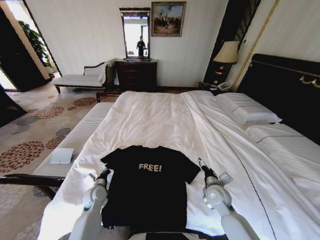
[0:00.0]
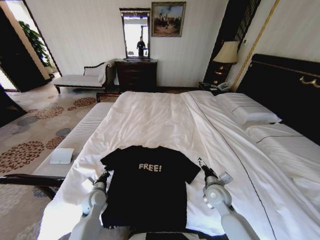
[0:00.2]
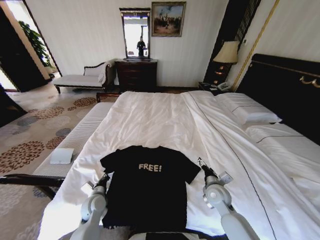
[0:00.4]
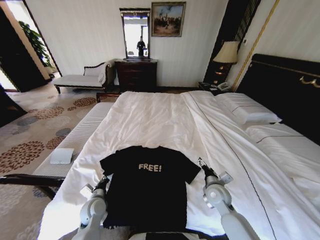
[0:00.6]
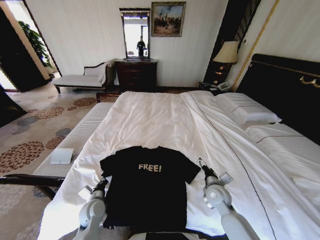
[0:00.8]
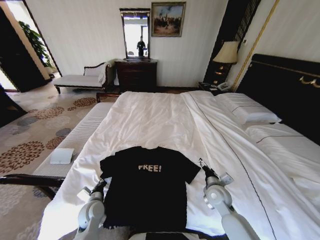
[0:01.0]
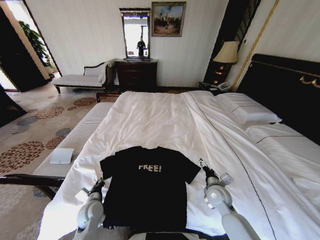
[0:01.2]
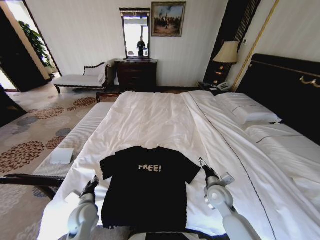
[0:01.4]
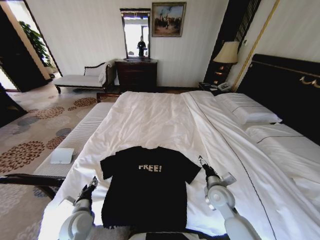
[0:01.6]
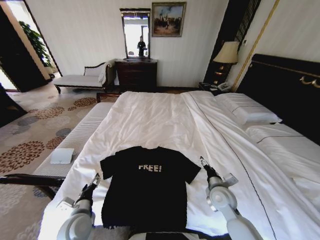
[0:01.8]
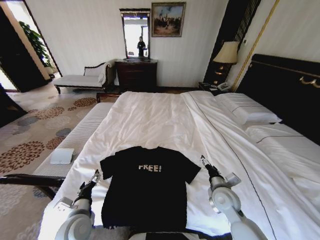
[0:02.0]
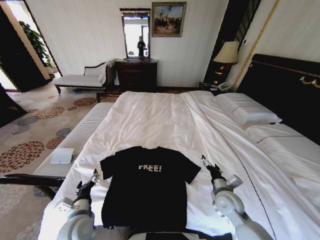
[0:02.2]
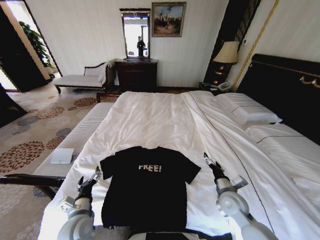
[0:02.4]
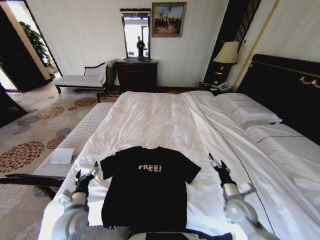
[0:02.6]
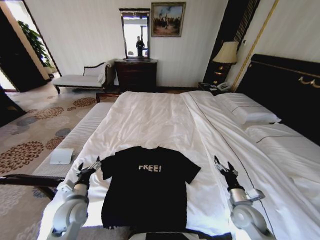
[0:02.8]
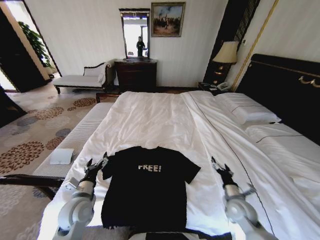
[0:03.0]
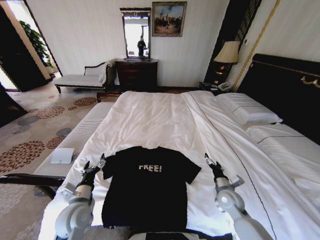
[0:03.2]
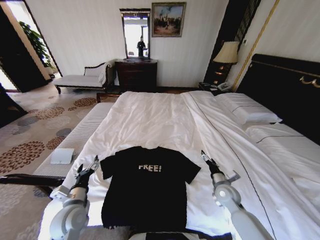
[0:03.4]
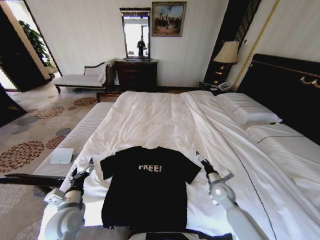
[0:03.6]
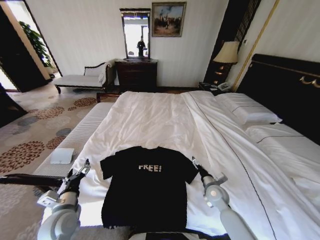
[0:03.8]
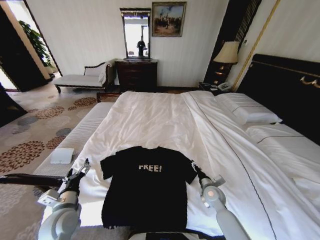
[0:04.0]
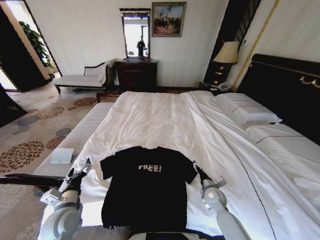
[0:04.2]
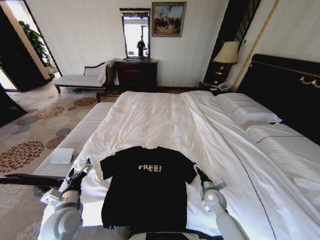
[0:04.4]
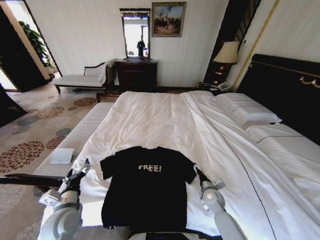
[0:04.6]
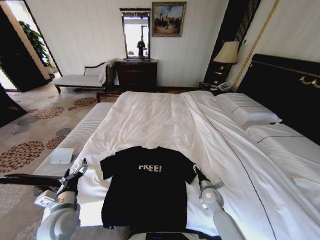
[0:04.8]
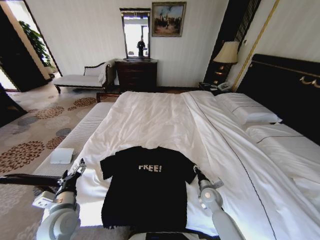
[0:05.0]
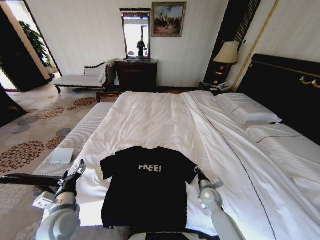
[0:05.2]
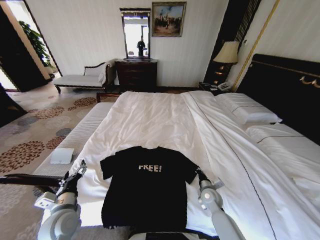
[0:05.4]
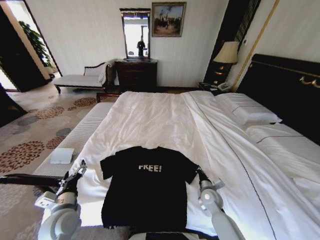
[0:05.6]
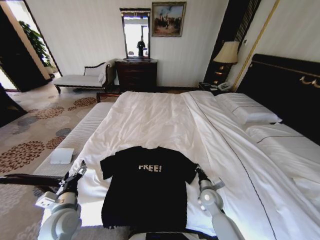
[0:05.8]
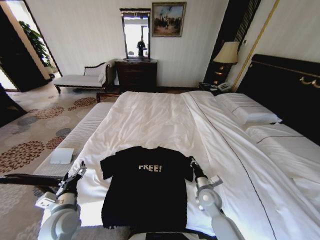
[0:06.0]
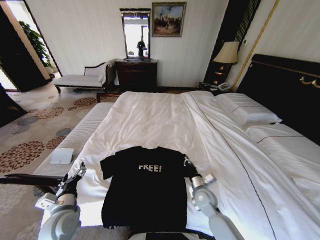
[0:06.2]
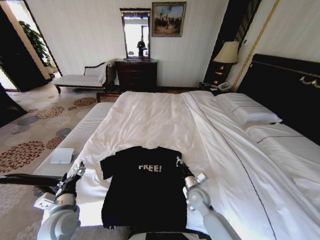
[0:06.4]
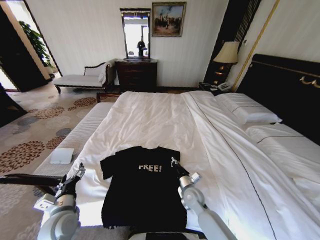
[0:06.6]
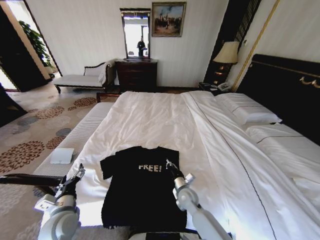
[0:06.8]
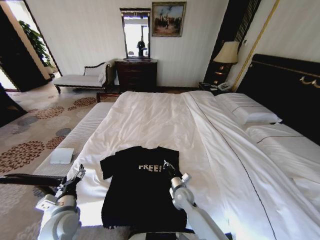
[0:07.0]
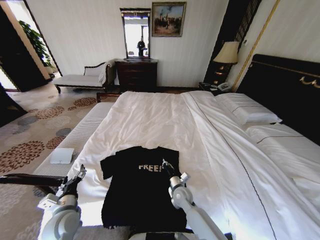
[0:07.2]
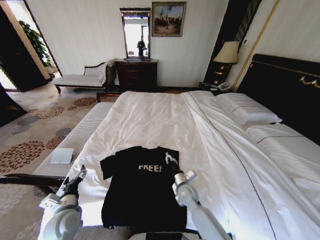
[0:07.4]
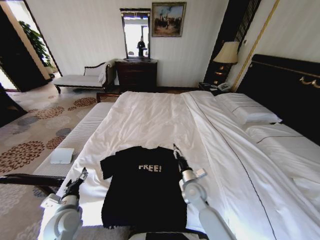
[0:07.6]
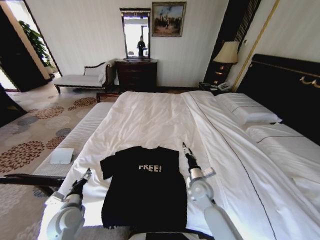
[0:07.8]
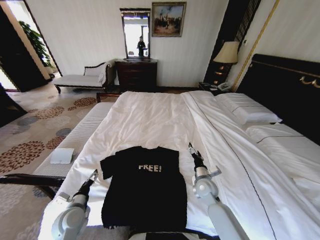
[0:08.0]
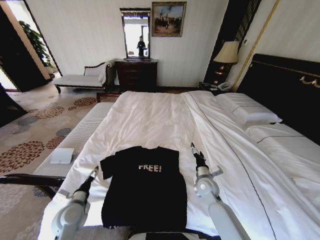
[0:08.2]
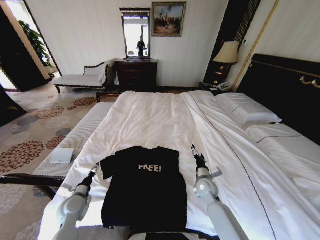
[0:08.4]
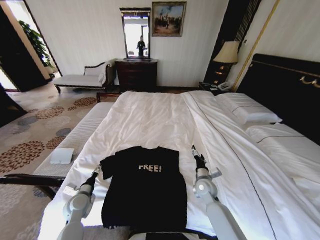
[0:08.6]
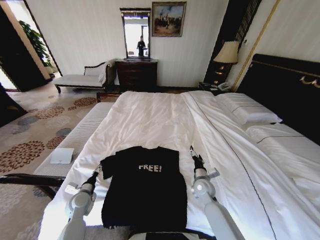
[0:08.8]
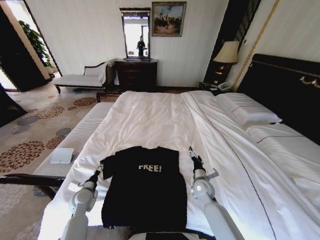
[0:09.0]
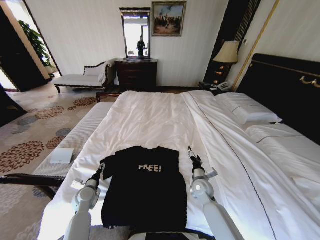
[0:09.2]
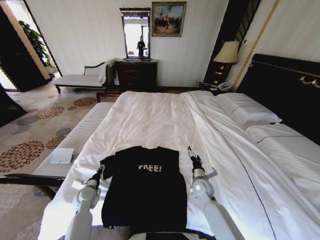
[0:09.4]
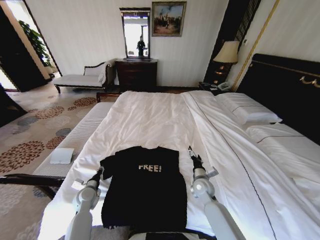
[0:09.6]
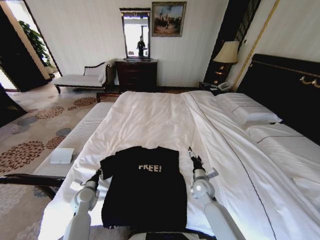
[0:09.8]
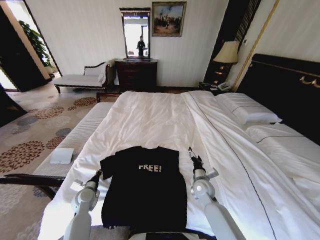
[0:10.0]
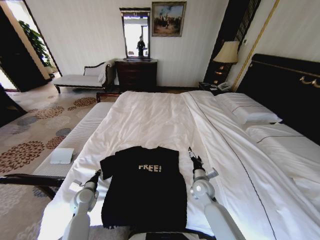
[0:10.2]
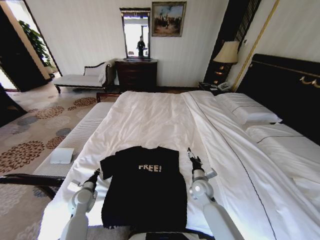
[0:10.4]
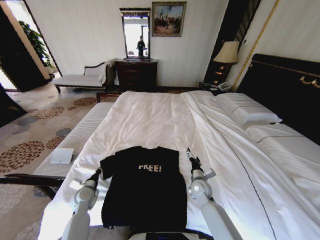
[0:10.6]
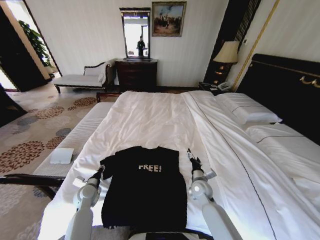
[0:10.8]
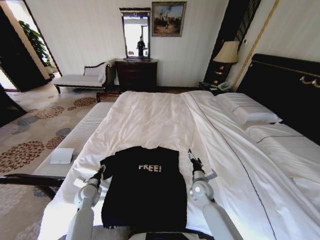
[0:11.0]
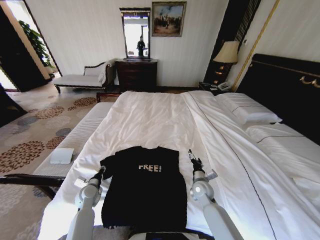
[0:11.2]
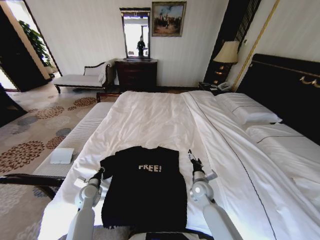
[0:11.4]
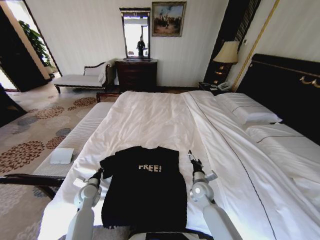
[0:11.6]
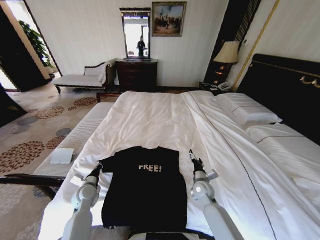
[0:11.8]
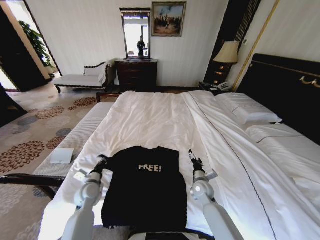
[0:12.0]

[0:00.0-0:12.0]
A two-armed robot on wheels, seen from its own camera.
Task of the whole recording: Fold the clothes on the bed.
0:00.0 to 0:01.6: The left gripper travels backward and upward by approximately 15 cm, and opens.
0:01.6 to 0:03.0: The right gripper travels to the right by some 10 cm, while the left gripper heads upward, covering about 5 cm.
0:03.0 to 0:04.4: The right gripper travels to the left and downward by about 10 cm.
0:04.4 to 0:06.0: The right gripper closes its fingers.
0:06.0 to 0:07.6: The right gripper heads to the left, covering approximately 5 cm, and opens up.
0:07.6 to 0:09.0: The left gripper goes some 10 cm forward and downward, while the right gripper shifts some 5 cm to the right, and opens its fingers.
0:10.4 to 0:12.0: The left gripper changes place by approximately 5 cm, and opens, then closes again.

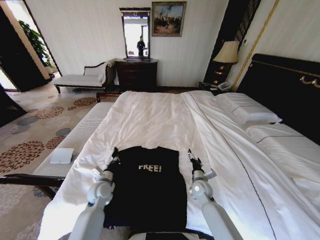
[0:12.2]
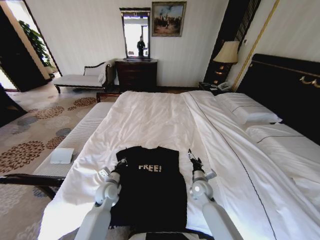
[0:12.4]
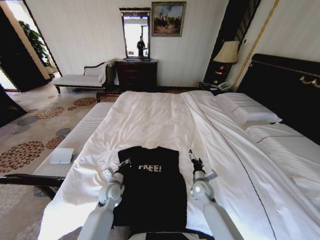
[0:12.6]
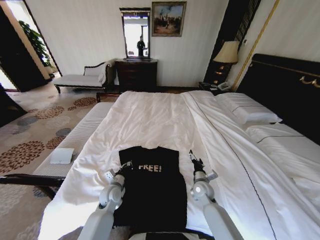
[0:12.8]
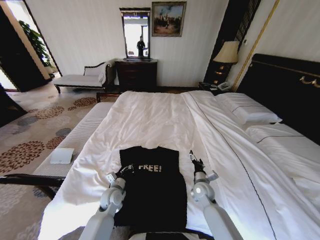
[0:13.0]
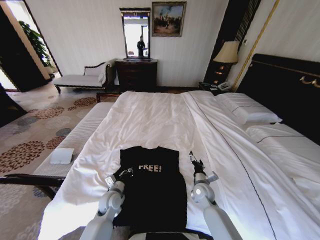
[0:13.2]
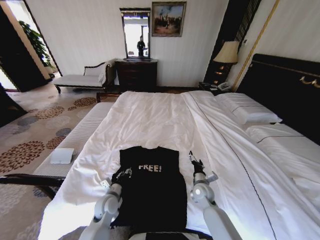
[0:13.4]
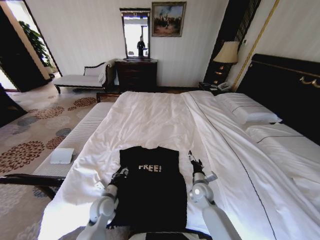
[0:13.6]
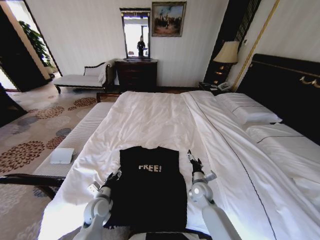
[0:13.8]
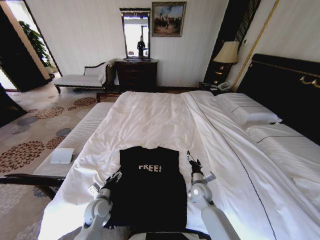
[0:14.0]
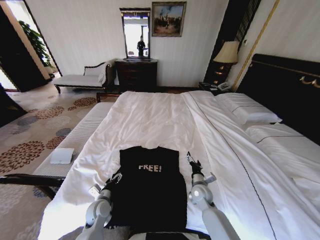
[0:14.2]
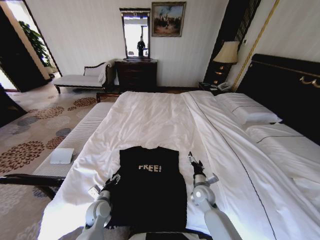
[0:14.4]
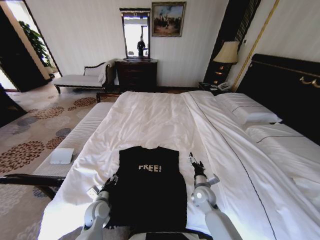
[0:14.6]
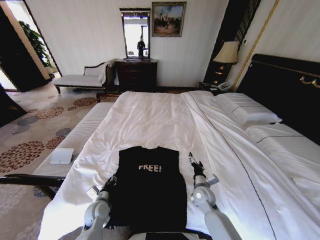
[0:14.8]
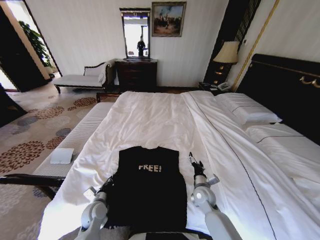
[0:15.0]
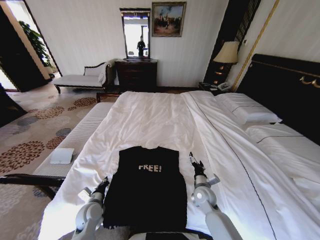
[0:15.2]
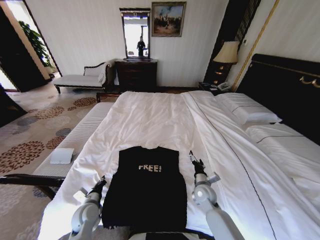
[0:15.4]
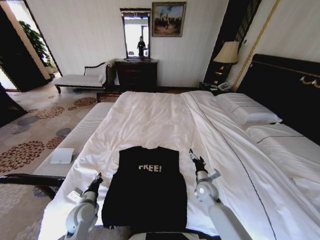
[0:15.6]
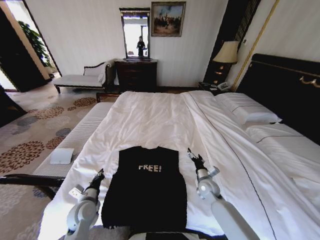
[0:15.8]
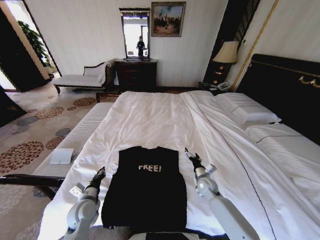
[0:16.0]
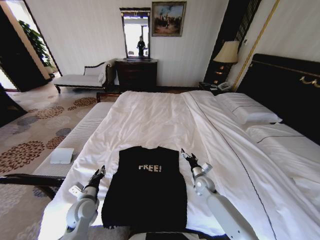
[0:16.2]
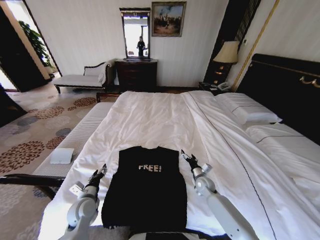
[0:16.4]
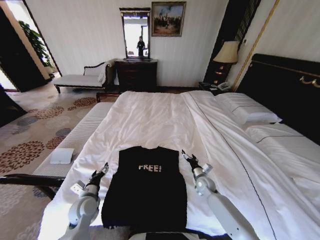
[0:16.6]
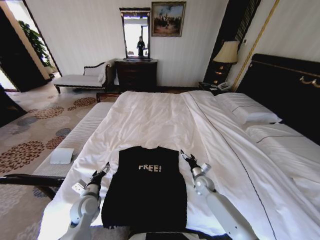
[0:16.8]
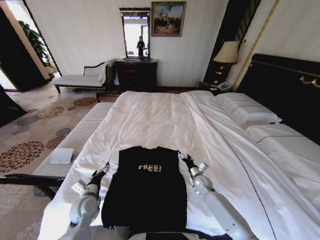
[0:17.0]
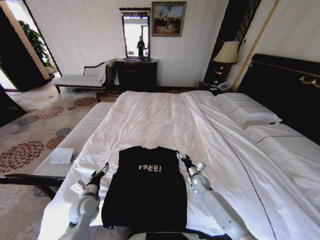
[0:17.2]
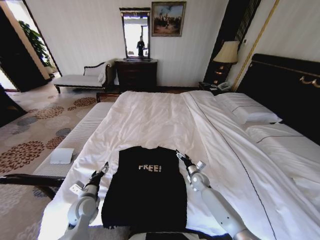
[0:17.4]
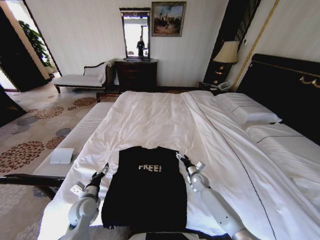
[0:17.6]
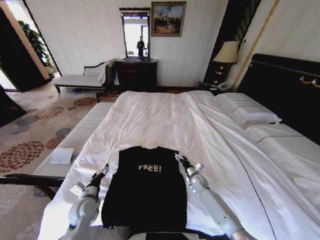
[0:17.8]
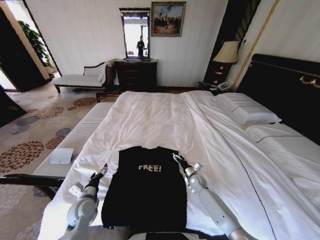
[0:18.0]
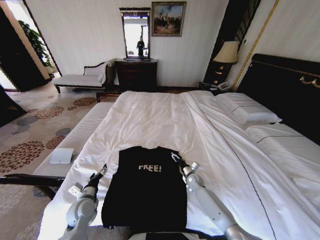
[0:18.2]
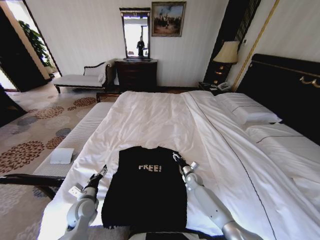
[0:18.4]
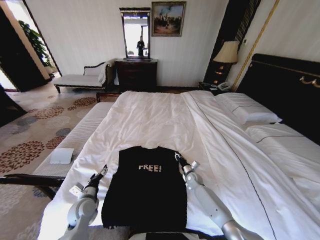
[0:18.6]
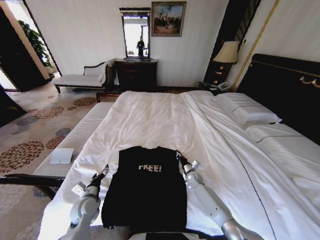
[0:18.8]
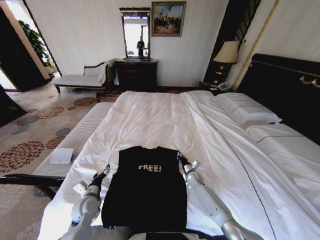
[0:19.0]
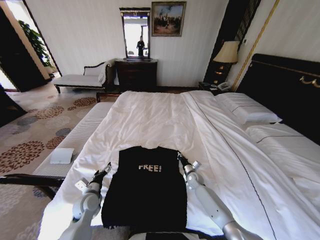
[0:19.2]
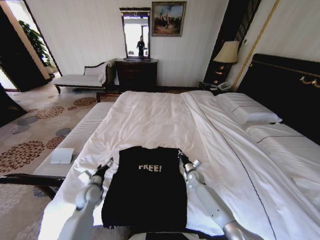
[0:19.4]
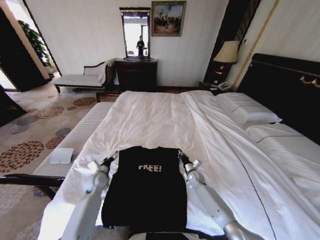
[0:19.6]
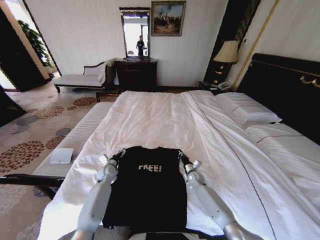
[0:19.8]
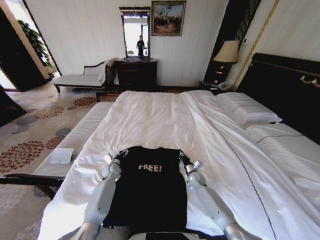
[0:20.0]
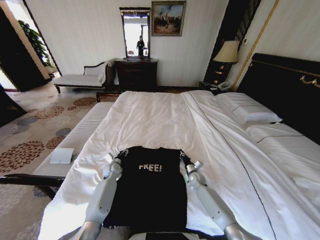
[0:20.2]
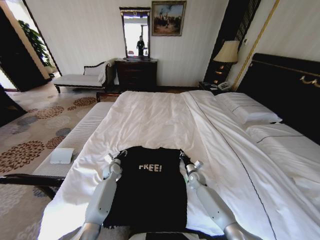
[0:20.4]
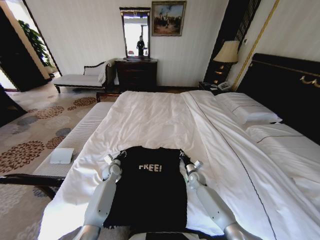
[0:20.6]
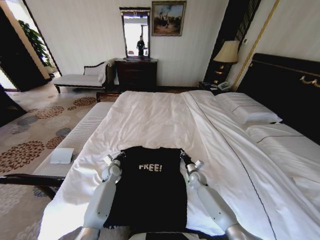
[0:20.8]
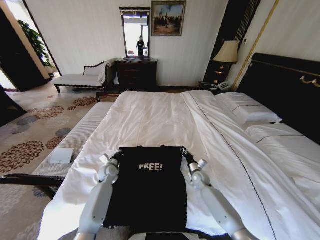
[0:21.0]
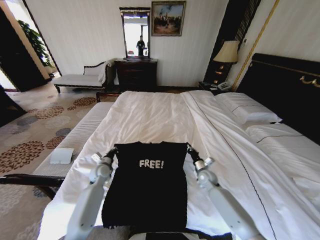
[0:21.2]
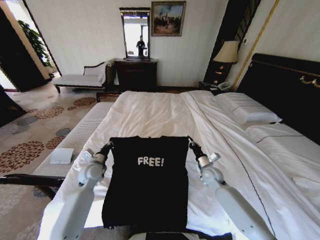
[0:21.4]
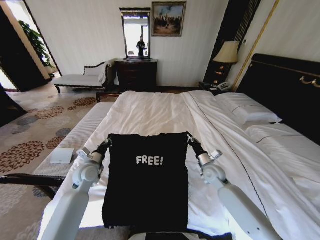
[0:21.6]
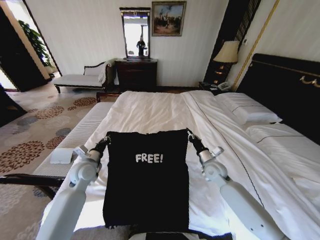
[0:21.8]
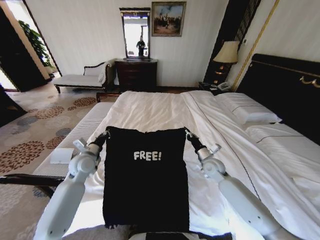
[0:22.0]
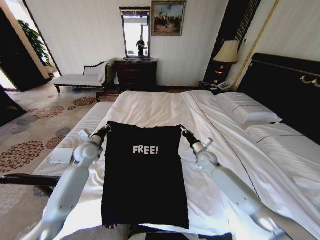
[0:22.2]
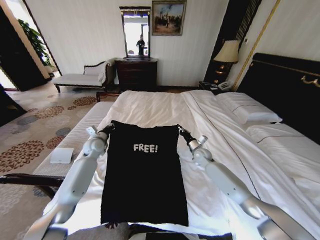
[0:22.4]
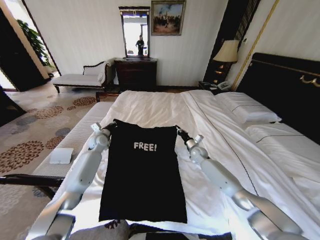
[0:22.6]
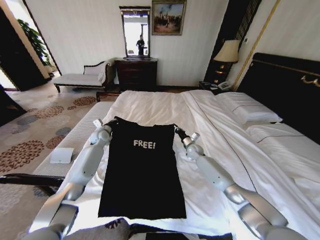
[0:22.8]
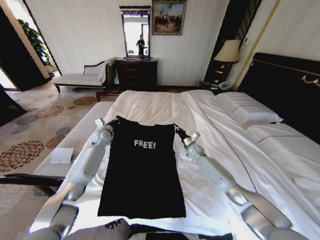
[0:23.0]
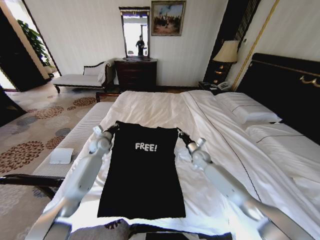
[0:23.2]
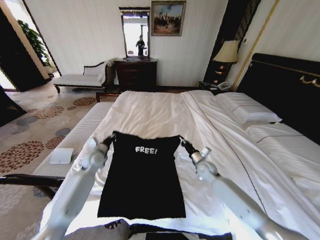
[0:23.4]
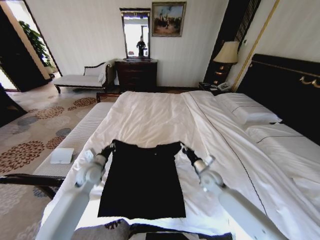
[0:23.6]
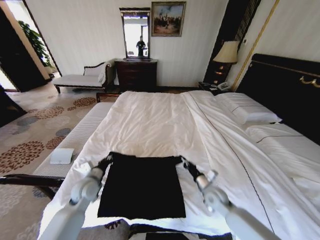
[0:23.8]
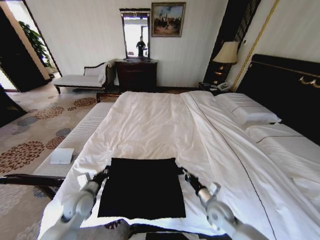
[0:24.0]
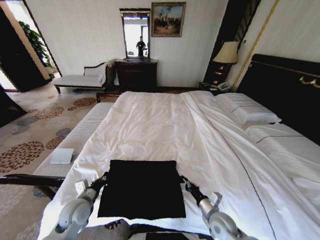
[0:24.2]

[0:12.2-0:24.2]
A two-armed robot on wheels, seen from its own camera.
Task of the whole recording: Fold the clothes on the bed.
0:12.2 to 0:13.8: The left gripper is displaced backward by about 5 cm, and opens.
0:13.8 to 0:15.2: The left gripper closes up.
0:15.2 to 0:16.6: The left gripper ends up about 5 cm from where it was, and opens its fingers, while the right gripper is displaced forward by about 5 cm.
0:16.6 to 0:18.2: The right gripper changes place by roughly 5 cm.
0:18.2 to 0:19.8: The right gripper closes up. Meanwhile the left gripper heads forward, covering some 20 cm.
0:19.8 to 0:21.2: The left gripper closes. Meanwhile the right gripper heads upward, covering about 5 cm.
0:21.2 to 0:22.6: Both grippers move forward and upward, roughly 15 cm.
0:22.6 to 0:24.2: The grippers both shift backward by roughly 30 cm.
